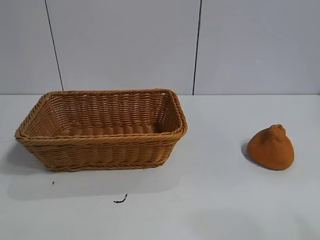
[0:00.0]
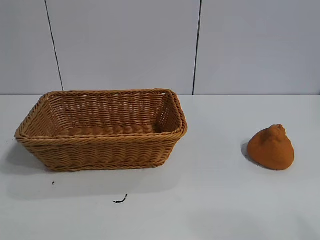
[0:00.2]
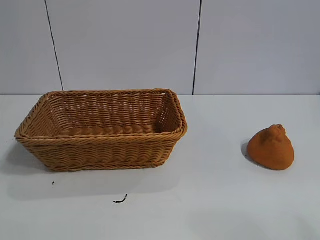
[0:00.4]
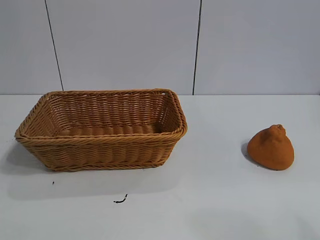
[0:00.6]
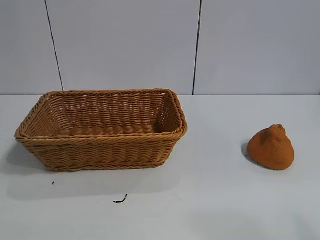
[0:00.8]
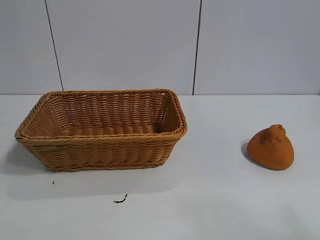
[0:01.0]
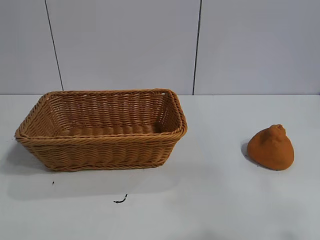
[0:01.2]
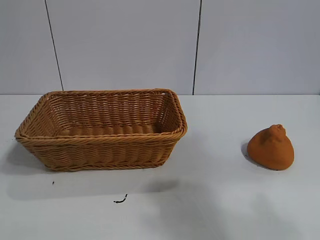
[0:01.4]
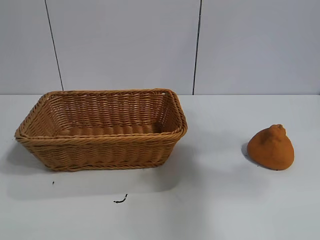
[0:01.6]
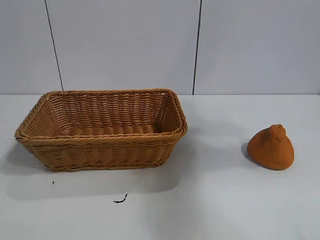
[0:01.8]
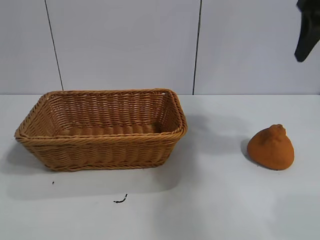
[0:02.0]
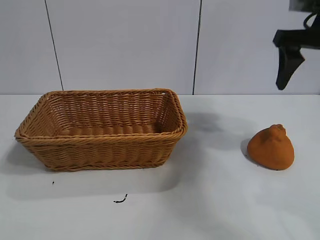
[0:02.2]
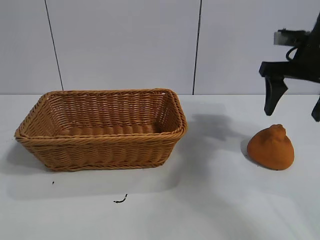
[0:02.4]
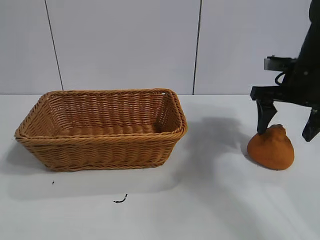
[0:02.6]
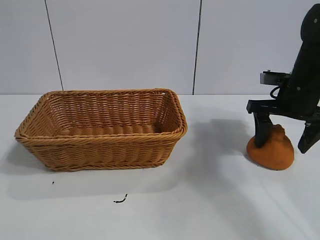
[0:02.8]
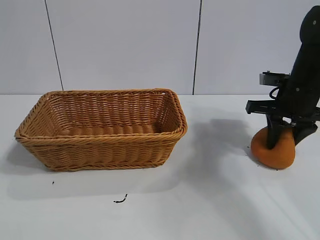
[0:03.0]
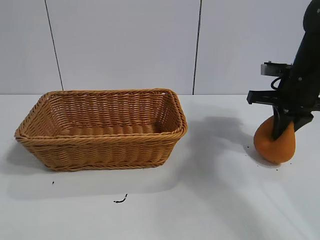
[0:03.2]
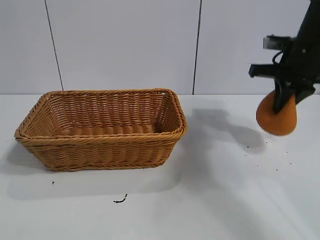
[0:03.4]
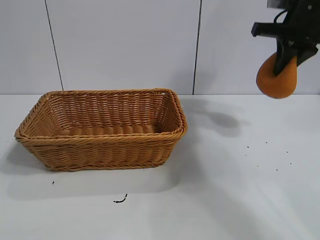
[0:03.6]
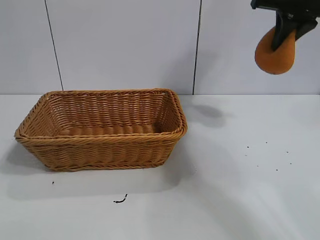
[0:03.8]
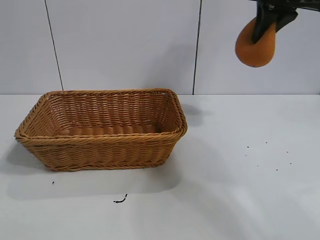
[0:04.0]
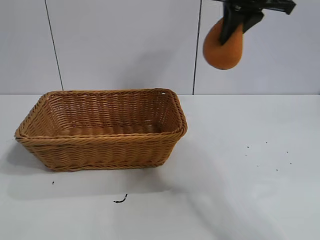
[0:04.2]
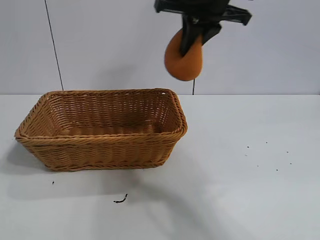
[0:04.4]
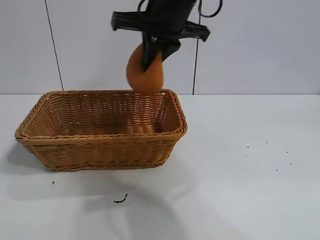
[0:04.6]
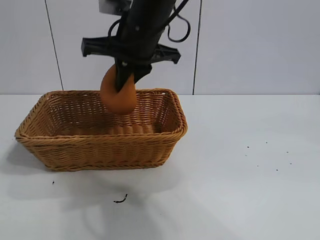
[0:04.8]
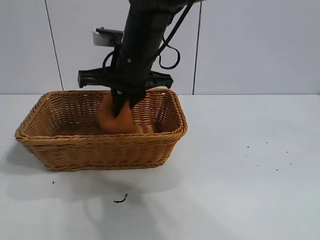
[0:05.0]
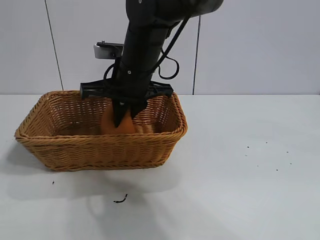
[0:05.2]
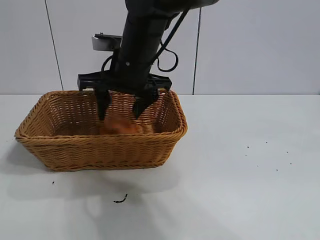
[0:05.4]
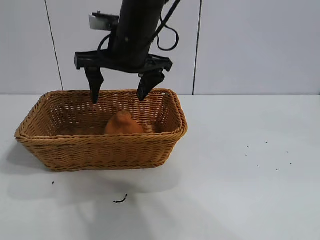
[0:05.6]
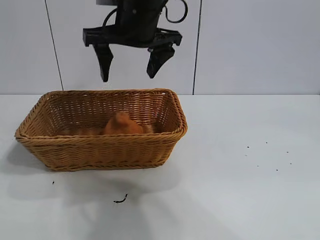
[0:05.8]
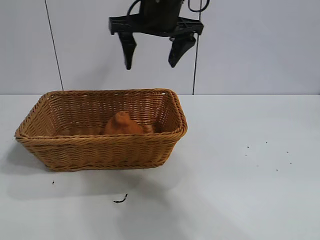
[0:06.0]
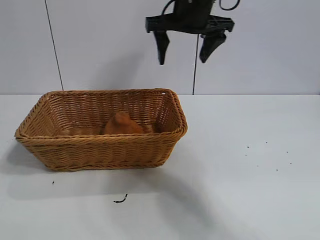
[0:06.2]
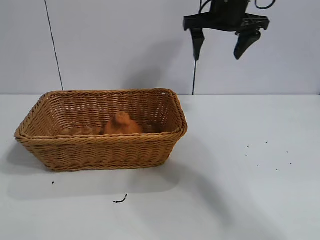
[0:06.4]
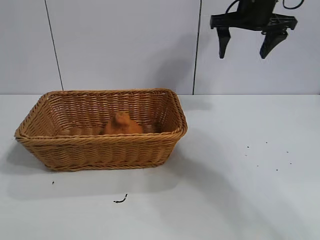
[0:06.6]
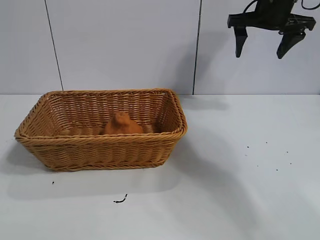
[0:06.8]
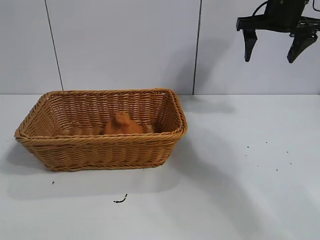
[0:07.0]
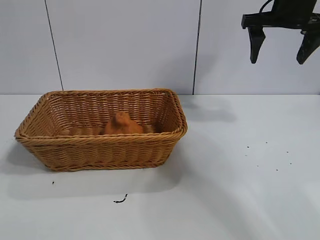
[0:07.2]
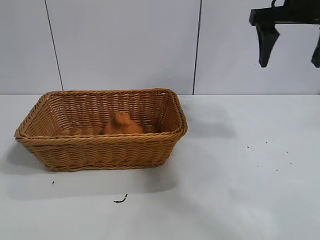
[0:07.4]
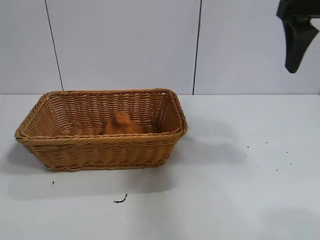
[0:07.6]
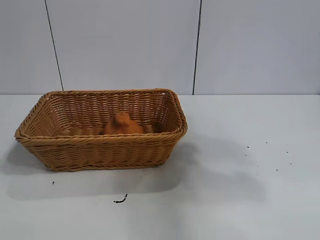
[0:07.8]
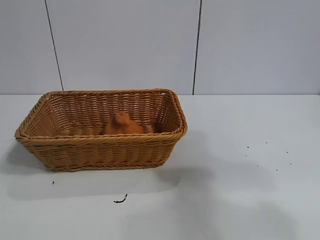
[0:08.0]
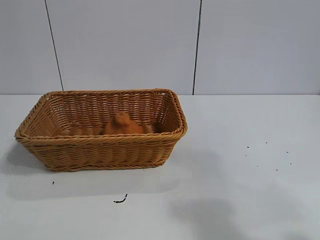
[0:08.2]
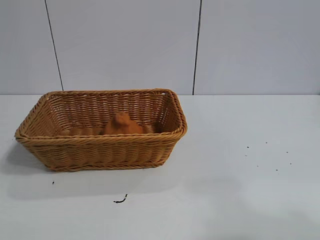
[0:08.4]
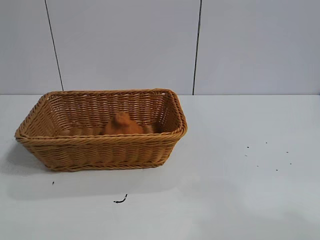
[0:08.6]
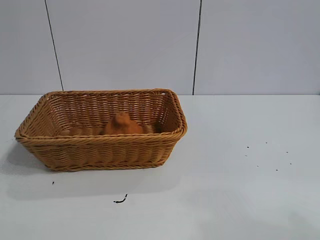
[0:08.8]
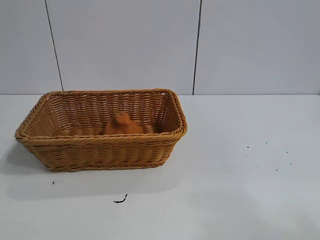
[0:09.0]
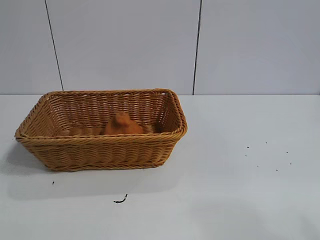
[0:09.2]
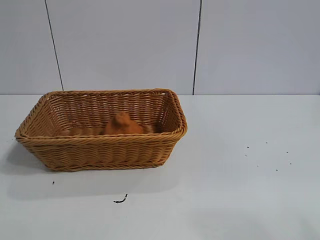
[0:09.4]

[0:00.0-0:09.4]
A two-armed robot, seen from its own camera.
Task of the whole recording: pick up the orange and put it into the basket.
Step, 0:00.0 to 0:03.0: Grasp the orange with right gripper.
Step, 0:03.2 to 0:05.6: Place the orange in the basket with right gripper.

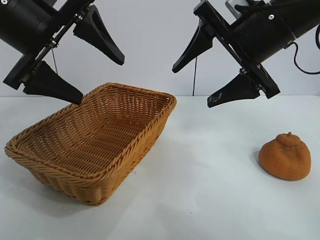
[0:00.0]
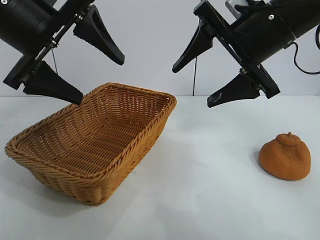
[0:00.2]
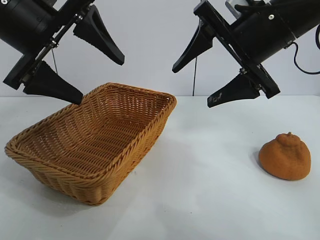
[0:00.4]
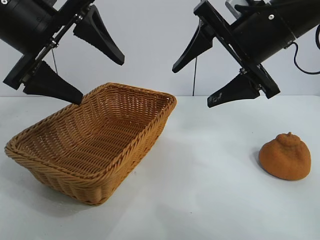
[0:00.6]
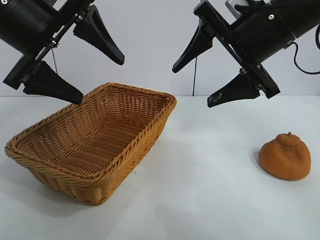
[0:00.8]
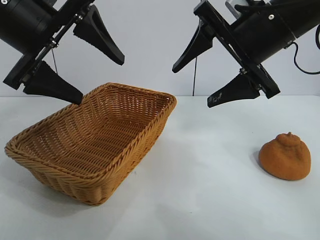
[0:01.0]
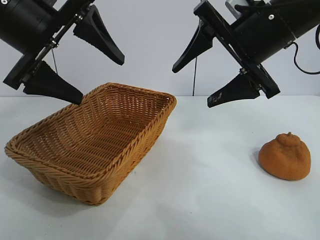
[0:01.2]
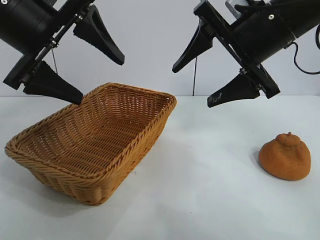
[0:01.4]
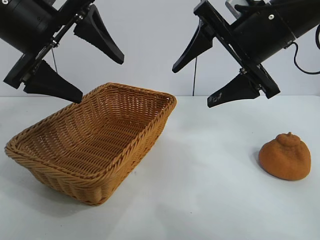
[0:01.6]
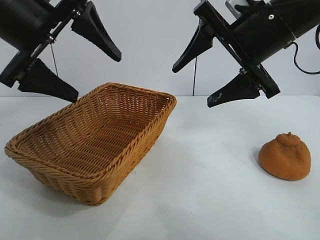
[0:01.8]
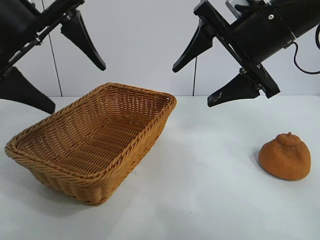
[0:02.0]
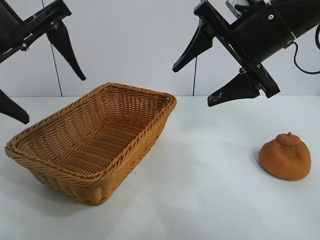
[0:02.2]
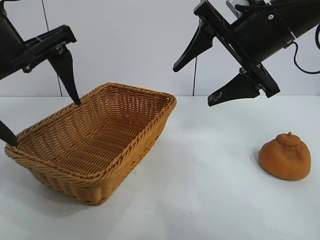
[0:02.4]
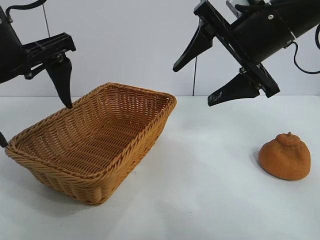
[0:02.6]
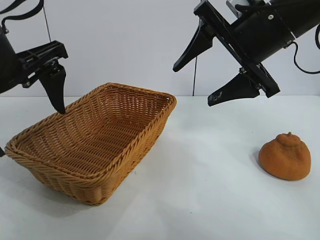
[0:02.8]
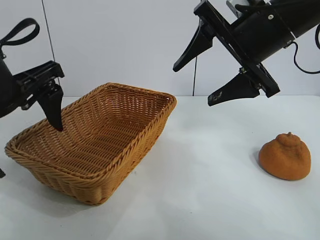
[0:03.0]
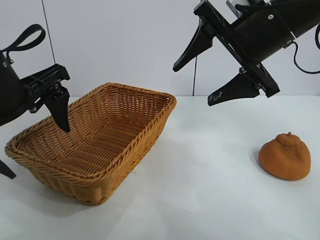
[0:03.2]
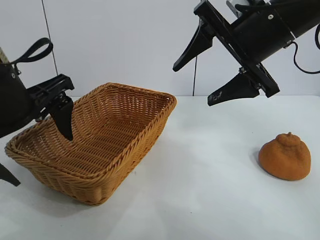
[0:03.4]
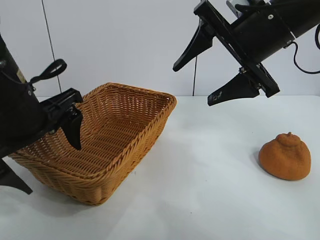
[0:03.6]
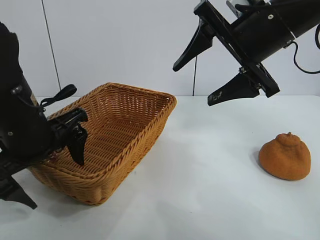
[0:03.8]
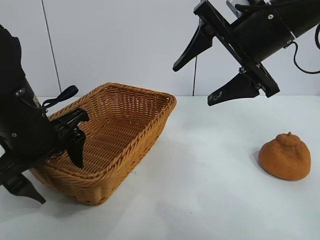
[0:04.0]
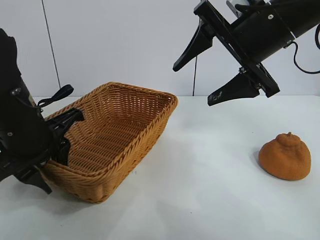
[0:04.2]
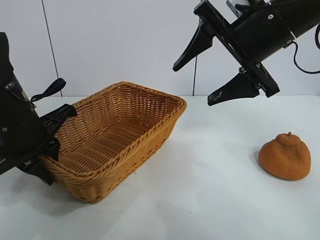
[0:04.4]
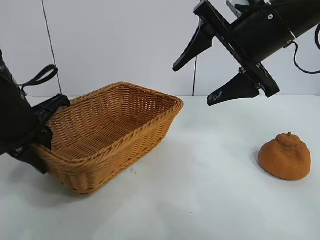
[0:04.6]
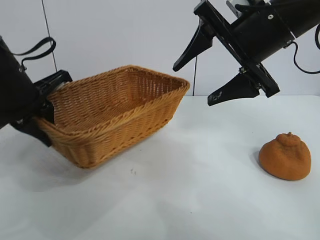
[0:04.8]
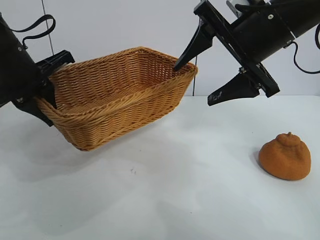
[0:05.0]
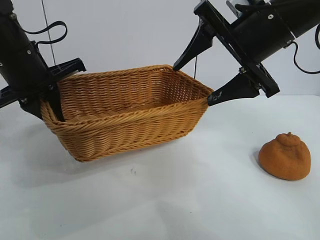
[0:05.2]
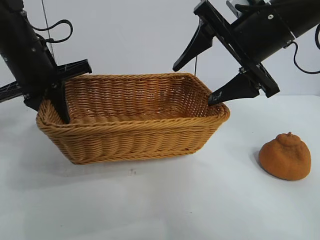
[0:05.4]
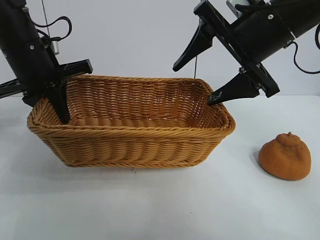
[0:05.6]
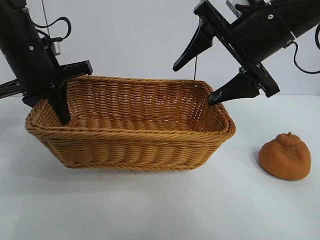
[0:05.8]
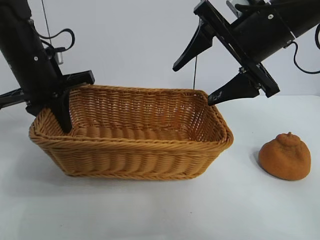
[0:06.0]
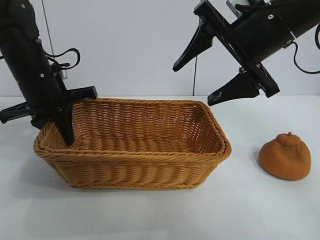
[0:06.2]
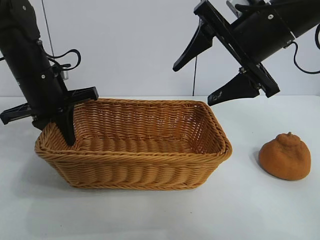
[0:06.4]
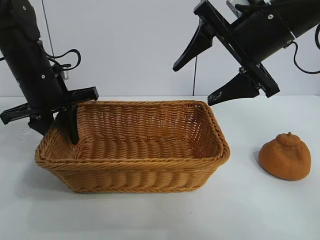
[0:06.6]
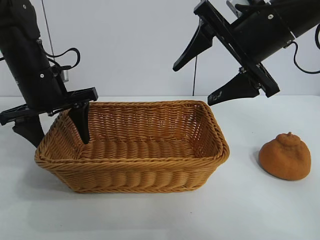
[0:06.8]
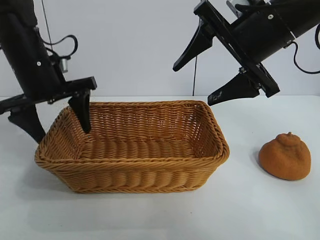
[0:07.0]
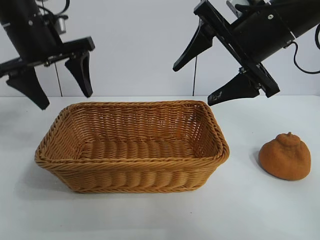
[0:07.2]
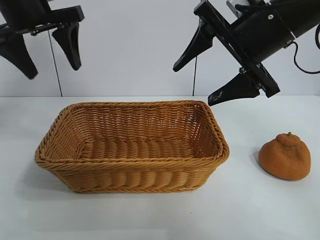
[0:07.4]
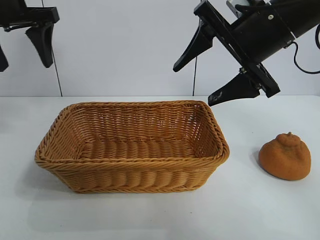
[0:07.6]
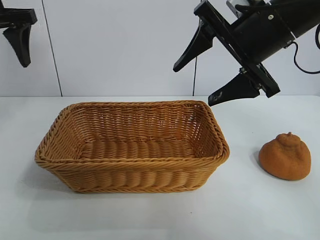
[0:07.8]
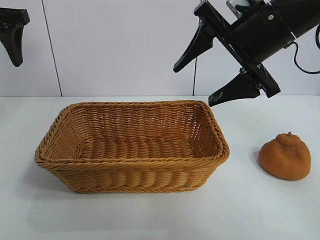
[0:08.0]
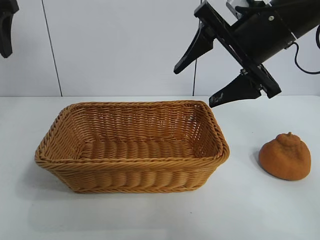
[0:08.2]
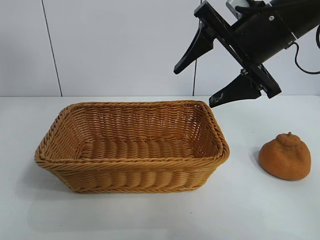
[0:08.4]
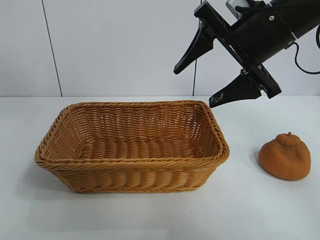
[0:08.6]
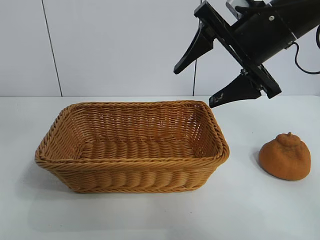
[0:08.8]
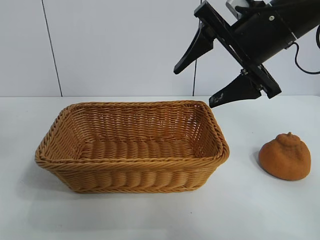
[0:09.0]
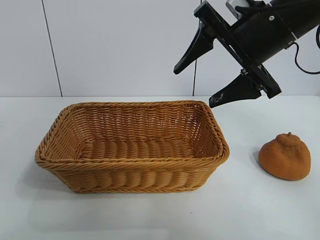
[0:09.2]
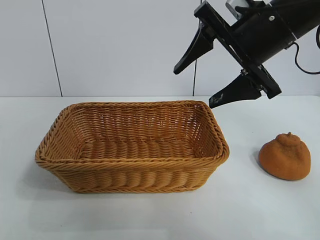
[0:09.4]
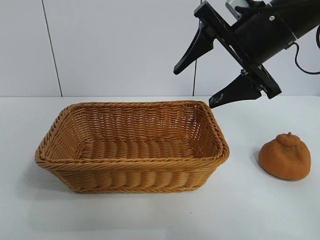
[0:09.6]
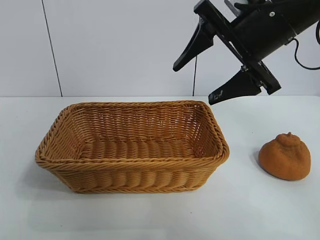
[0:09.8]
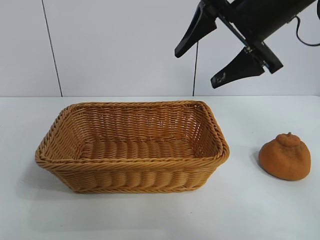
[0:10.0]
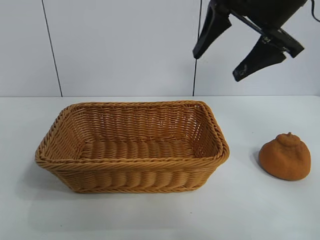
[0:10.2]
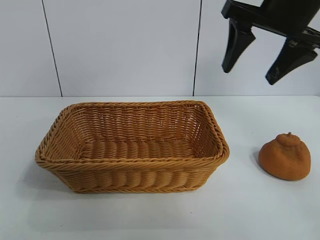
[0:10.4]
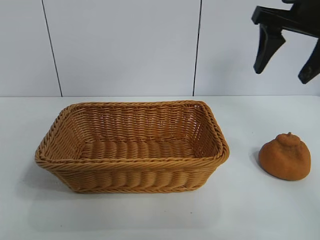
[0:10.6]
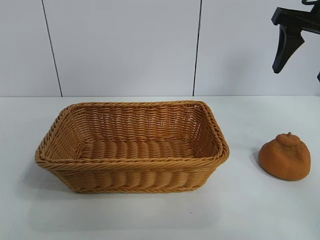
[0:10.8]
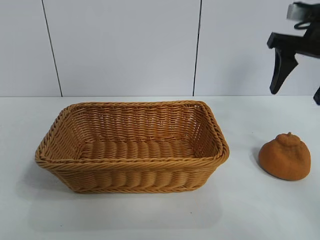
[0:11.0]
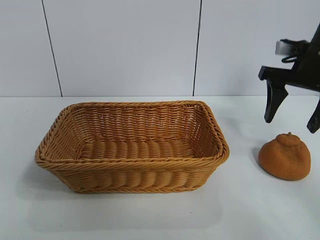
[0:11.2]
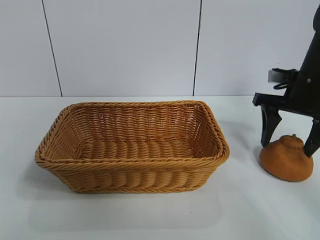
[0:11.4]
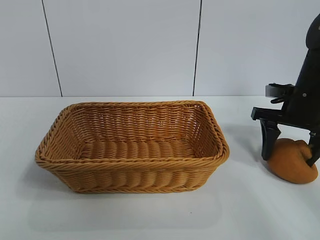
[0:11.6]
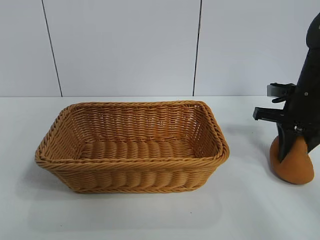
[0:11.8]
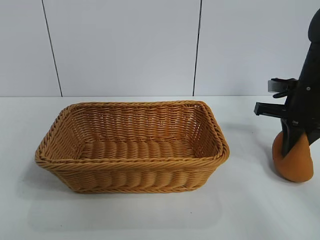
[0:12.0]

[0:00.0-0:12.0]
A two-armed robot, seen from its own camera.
Task of the whole recording: pick up the orange and put it into the basket.
Step, 0:01.8 to 0:04.2: Grasp the basket with left gripper.
Step, 0:04.4 to 0:06.8: Place the basket in the center of view with left gripper.

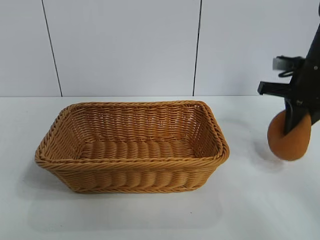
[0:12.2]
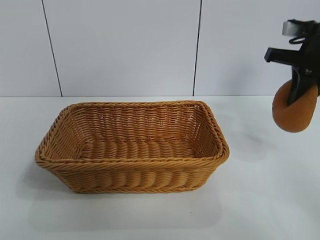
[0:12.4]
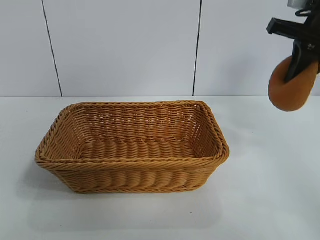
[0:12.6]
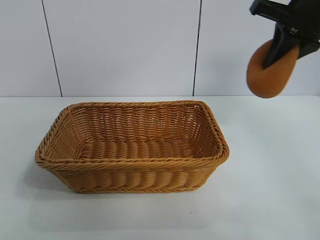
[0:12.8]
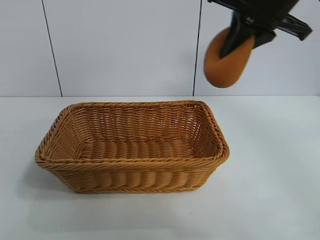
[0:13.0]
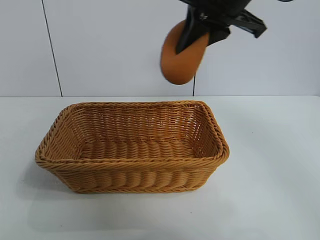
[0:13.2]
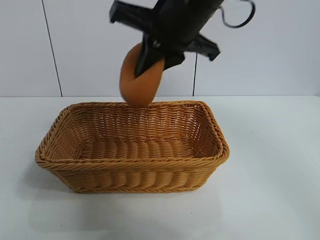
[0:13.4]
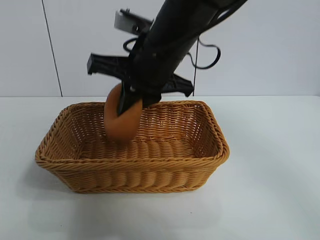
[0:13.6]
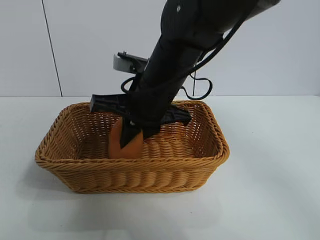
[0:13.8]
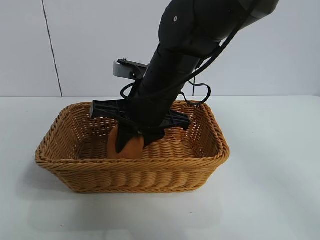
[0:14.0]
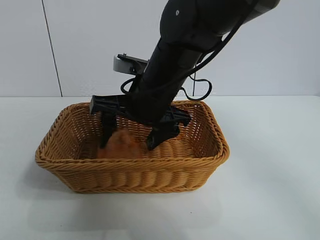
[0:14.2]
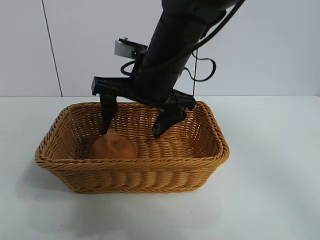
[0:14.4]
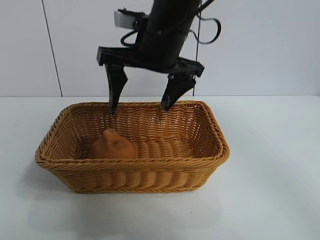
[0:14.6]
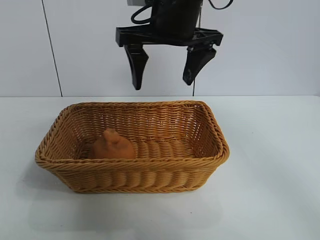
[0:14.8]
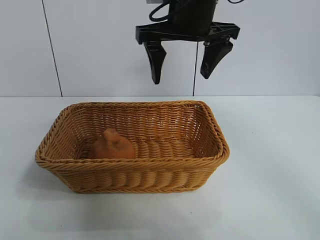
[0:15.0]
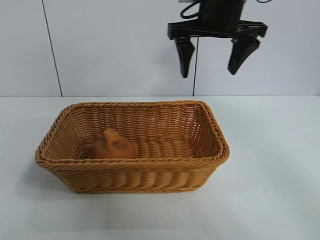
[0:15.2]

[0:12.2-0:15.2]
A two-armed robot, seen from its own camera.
Task of the whole recording: pick up the orange and put it into the basket.
Step, 0:12.4 to 0:14.2: Place the orange in the basket with right gripper.
